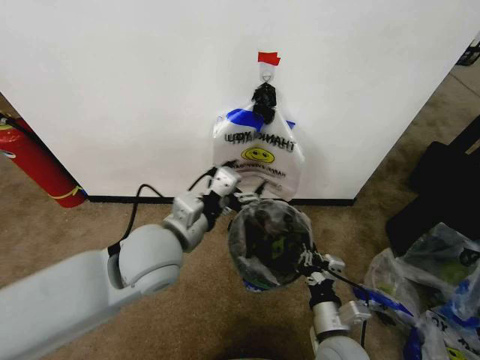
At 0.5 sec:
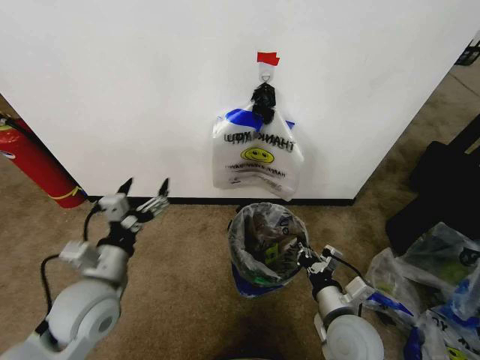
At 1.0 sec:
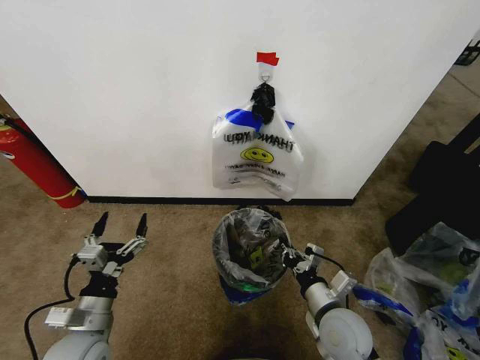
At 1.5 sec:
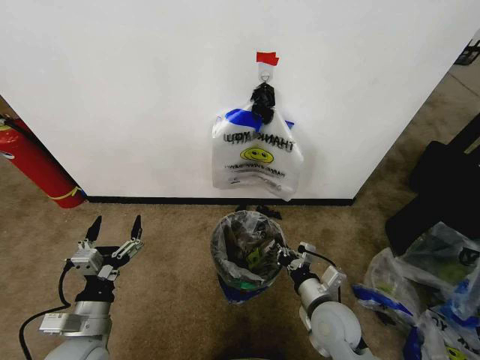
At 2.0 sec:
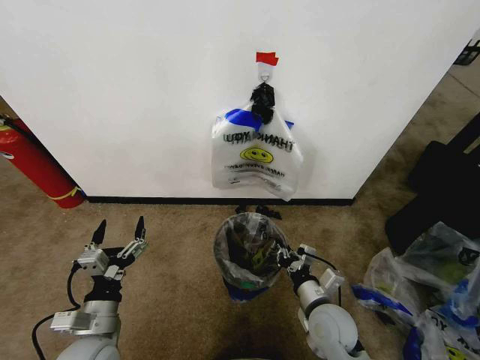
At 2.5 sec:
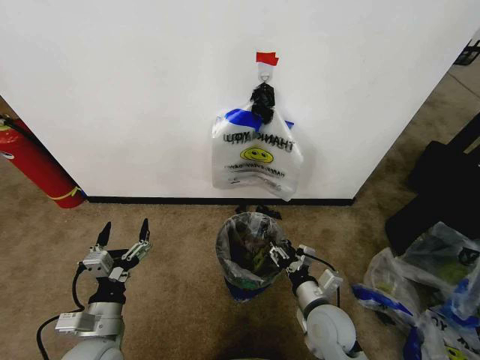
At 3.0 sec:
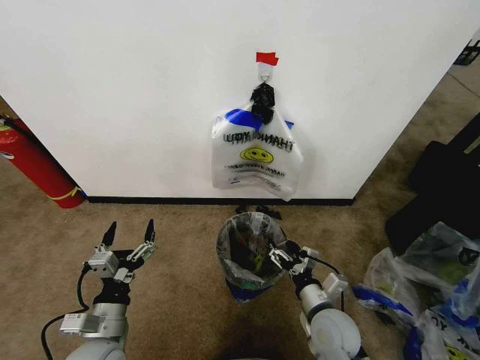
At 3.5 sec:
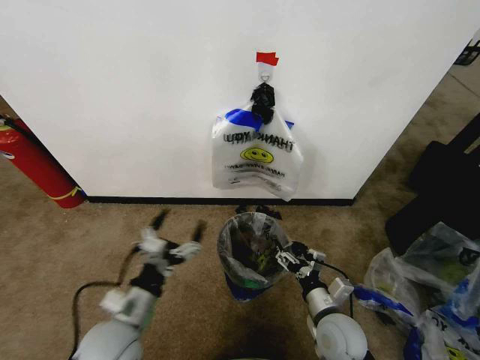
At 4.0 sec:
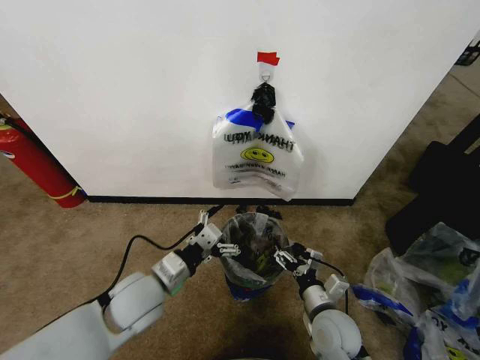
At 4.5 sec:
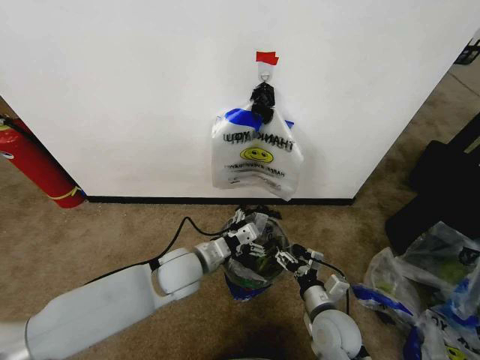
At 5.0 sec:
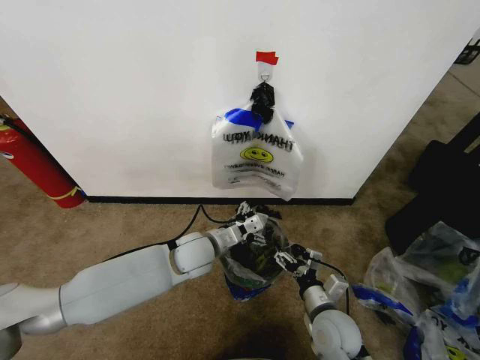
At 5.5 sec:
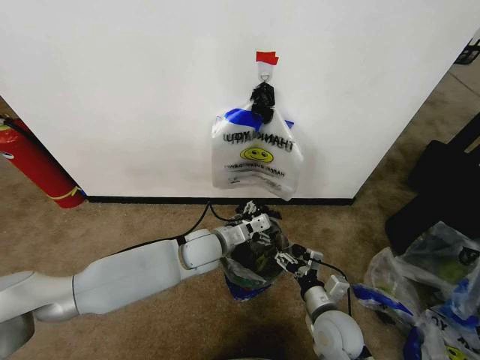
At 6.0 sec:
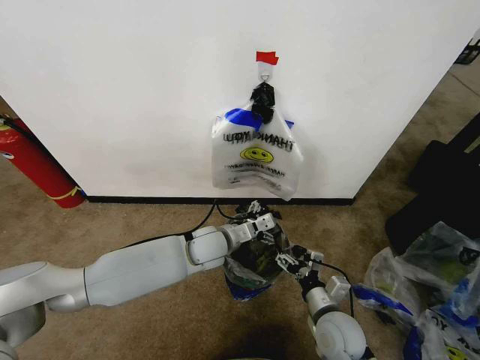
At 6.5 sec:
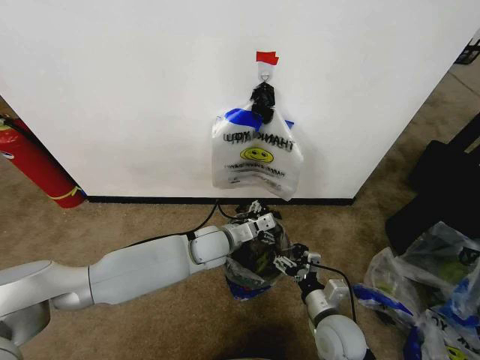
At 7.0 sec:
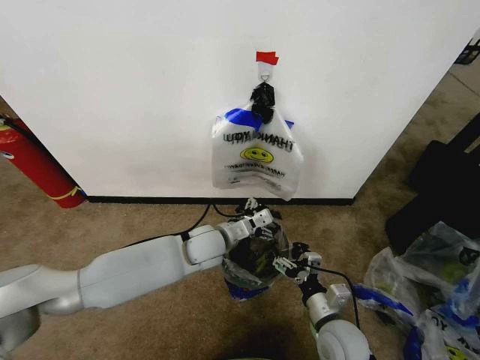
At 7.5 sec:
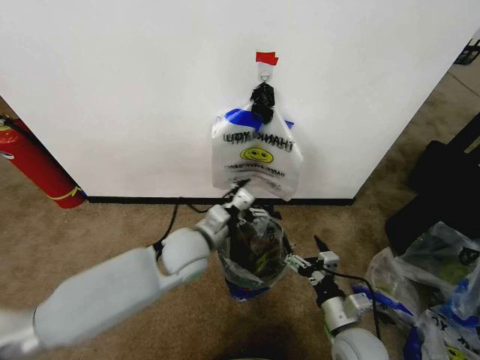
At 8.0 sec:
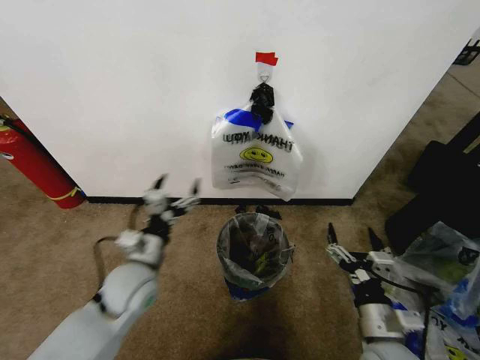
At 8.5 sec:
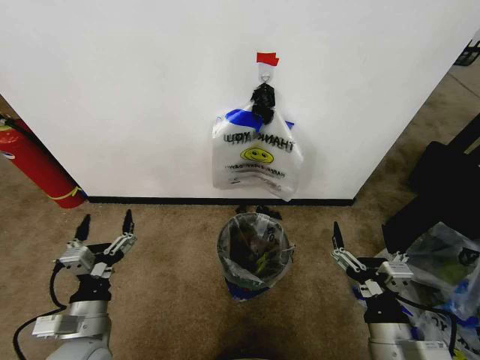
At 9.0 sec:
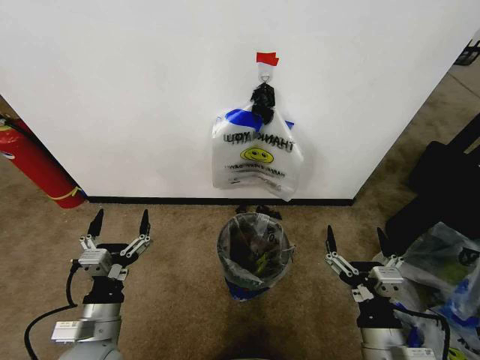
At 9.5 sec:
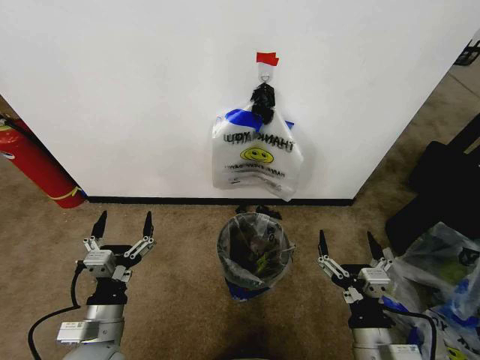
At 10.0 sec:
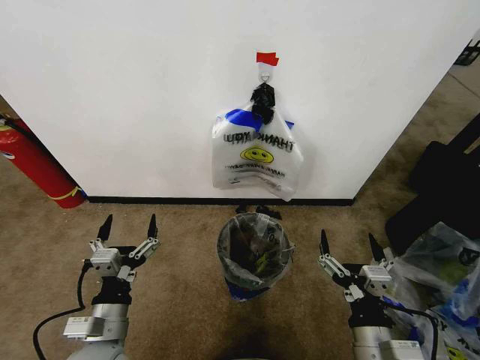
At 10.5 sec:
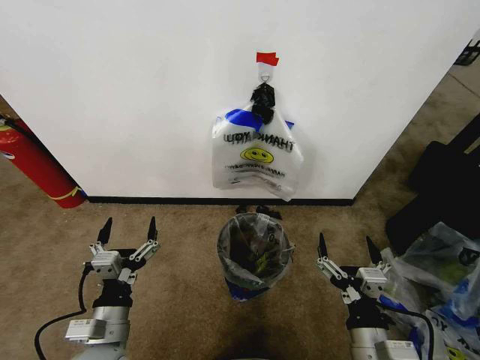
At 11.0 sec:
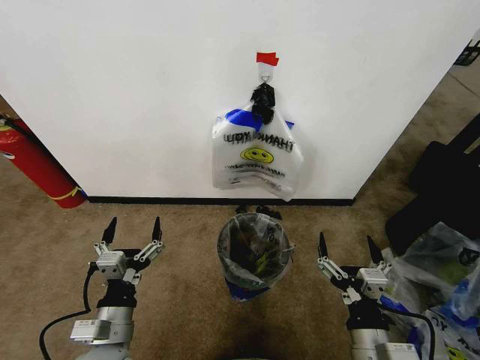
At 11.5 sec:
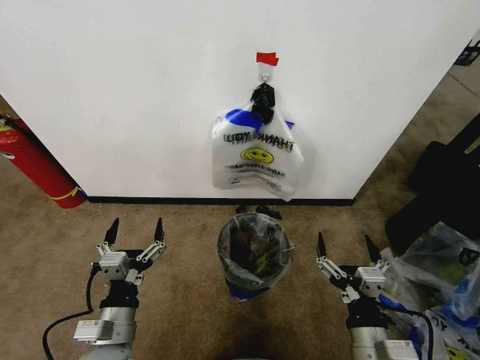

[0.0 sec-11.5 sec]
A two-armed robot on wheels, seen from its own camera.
Task of the whole recording: Pick up the garbage bag from the wall and place it over the trash bin.
0.0 sec to 2.0 sec: The left gripper shifts roughly 25 cm downward, to the left and backward. Meanwhile the right gripper goes about 5 cm forward.
2.0 sec to 4.0 sec: The right gripper opens, while the left gripper is displaced to the right, forward and upward by some 15 cm.
4.0 sec to 6.0 sec: The left gripper goes some 20 cm forward and to the right.
6.0 sec to 7.5 sec: The left gripper shifts roughly 10 cm upward and backward.
7.5 sec to 9.5 sec: The left gripper goes roughly 25 cm backward and to the left. The right gripper travels backward and upward by roughly 10 cm.
9.5 sec to 11.5 sec: The grippers move only a little.
